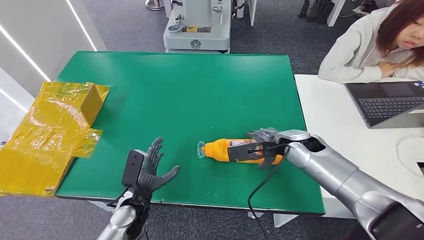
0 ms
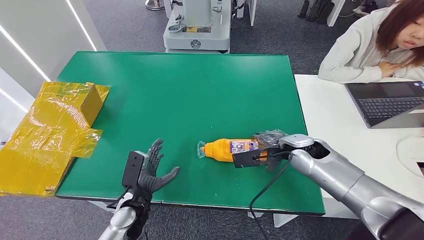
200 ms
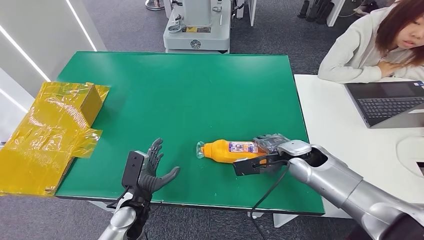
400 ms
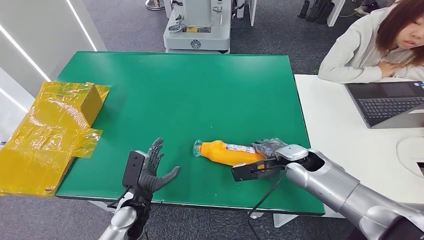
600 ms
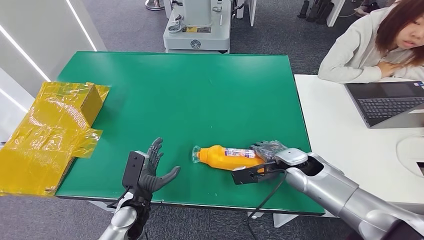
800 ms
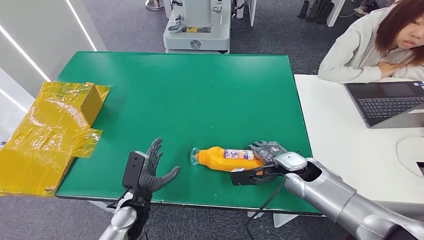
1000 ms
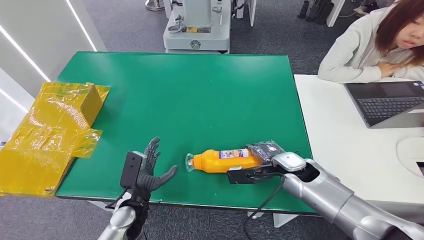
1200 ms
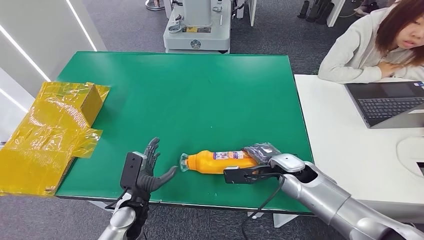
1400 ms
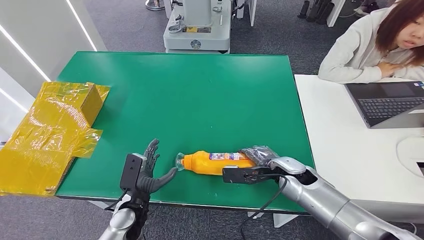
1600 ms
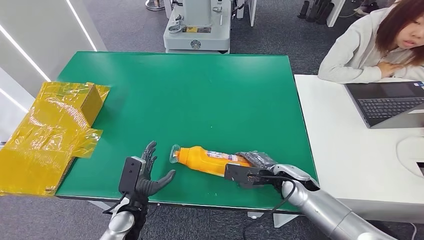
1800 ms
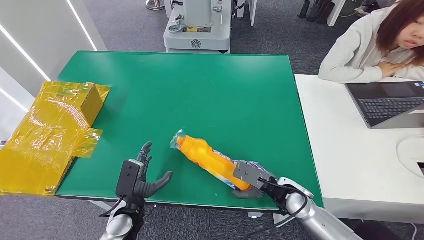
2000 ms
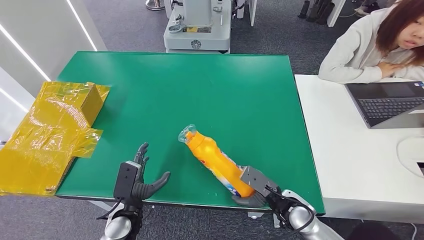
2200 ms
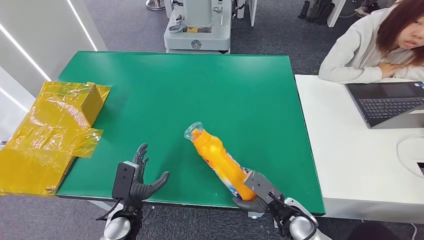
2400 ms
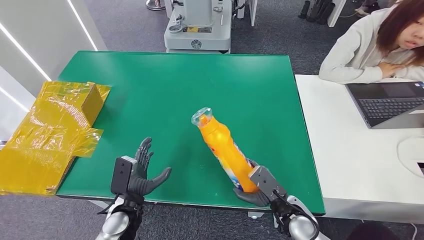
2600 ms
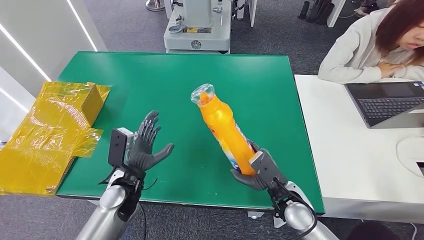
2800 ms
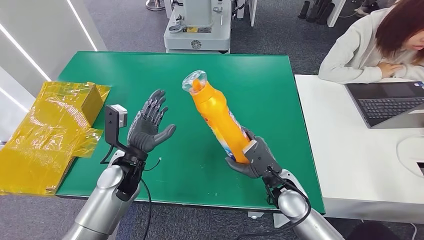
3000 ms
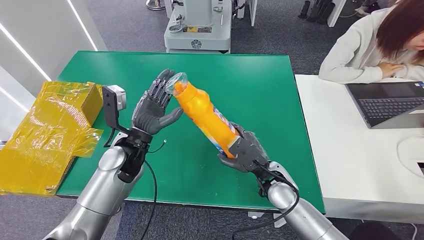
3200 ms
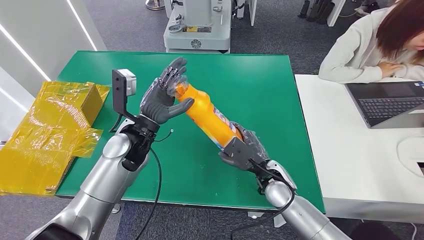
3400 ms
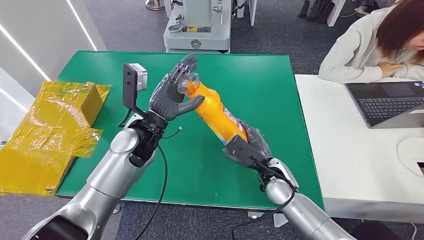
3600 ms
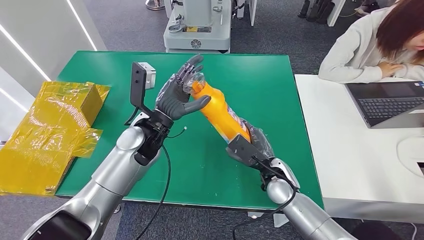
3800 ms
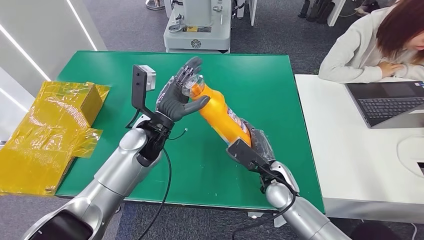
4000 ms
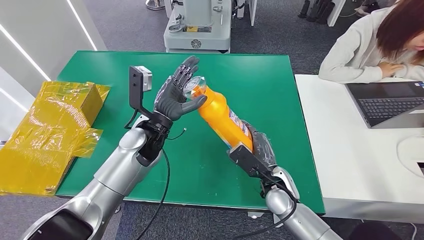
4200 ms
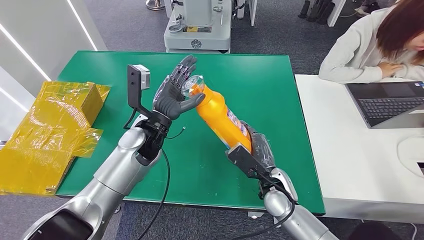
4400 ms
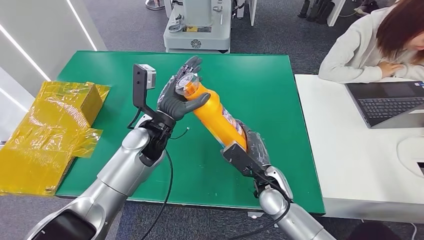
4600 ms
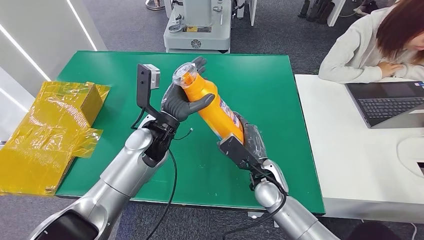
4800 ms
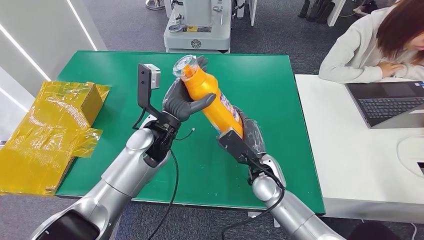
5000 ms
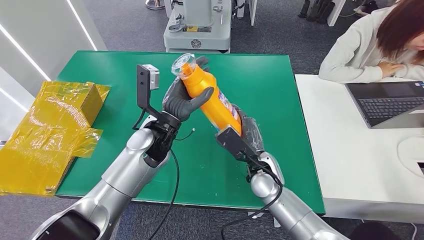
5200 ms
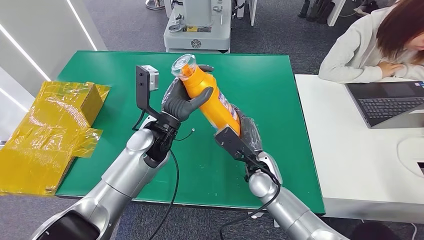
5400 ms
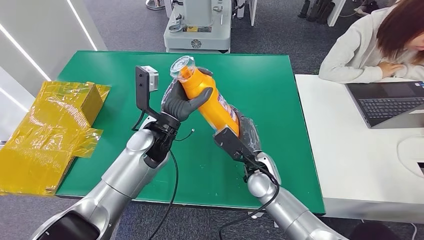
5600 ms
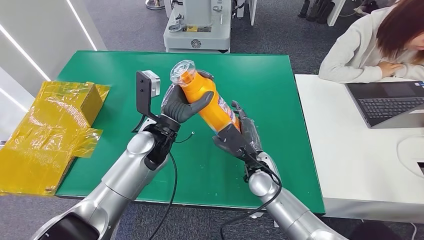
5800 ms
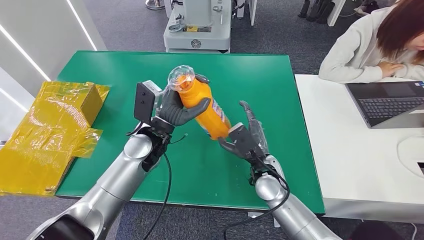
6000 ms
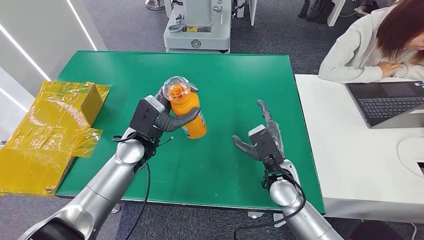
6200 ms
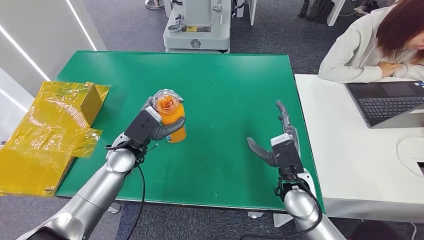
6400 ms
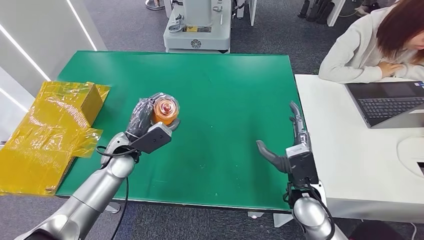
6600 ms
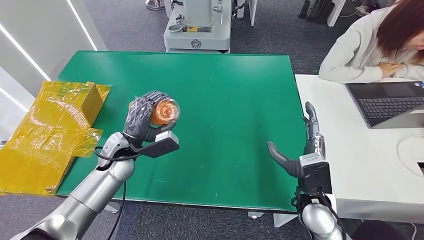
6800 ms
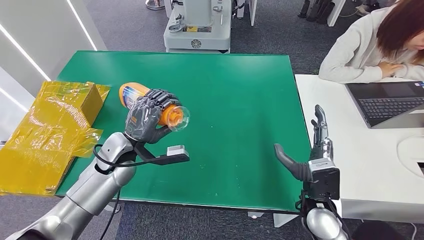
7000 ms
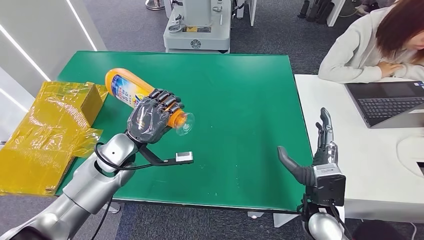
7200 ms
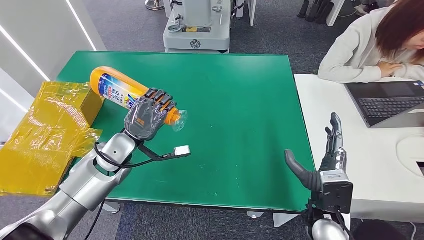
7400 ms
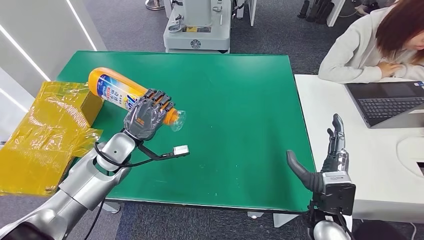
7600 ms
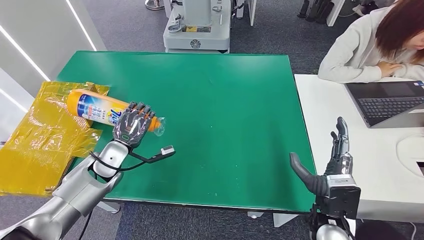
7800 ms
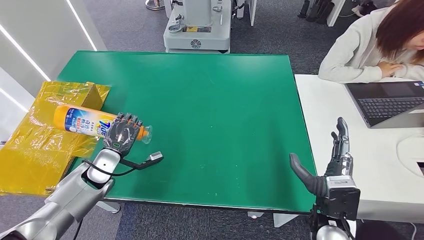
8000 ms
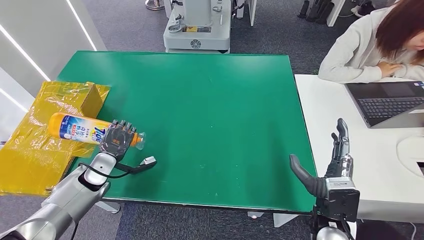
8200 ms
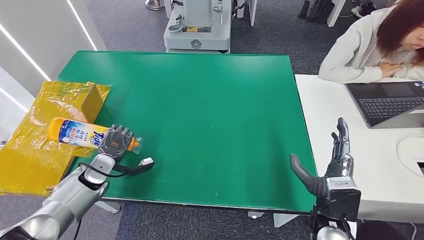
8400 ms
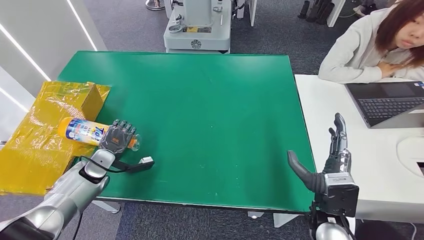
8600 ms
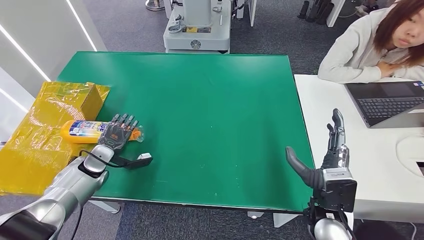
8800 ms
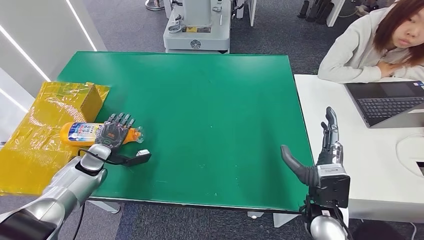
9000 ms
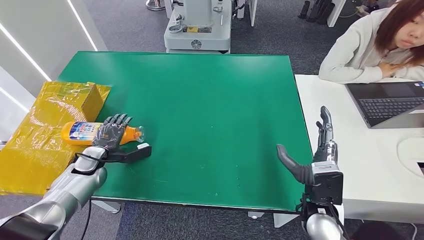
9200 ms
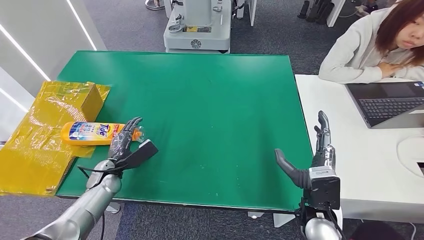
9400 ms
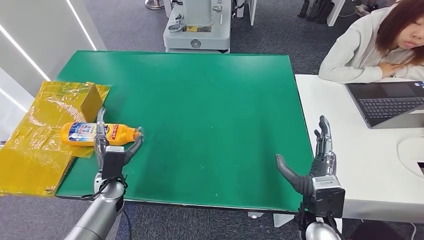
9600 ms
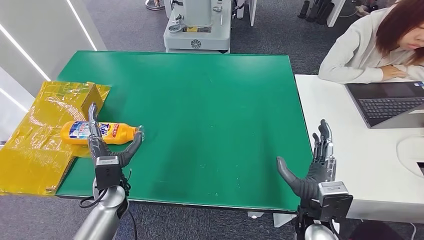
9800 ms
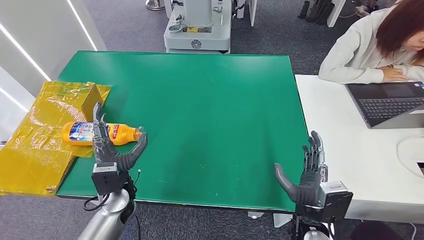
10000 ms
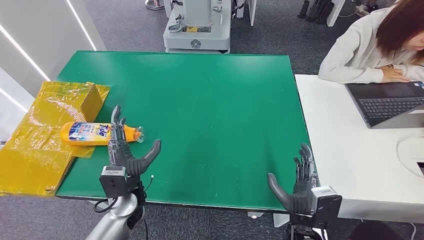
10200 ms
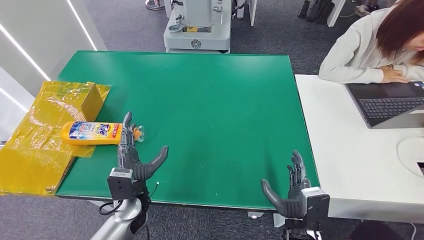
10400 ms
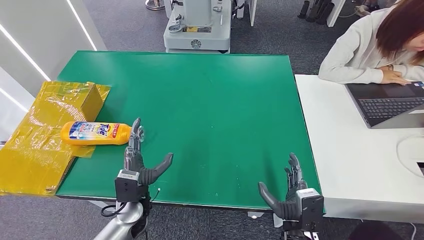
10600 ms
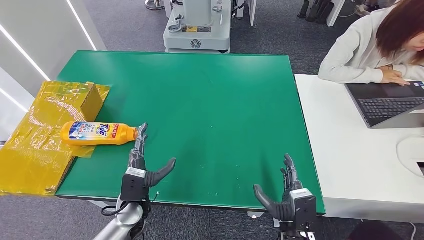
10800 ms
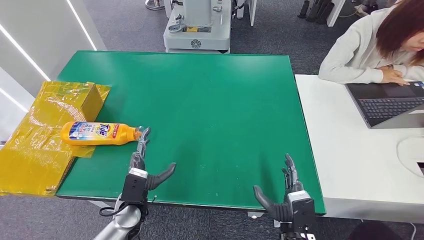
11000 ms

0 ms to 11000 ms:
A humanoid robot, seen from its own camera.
Step, 0 ms to 2800 ms: Pick up the bottle from the table.
Step, 3000 ms to 11000 ms: Turn the bottle to the front side.
0 ms to 1600 ms: The right hand goes roughly 10 cm downward and backward.
3200 ms to 4800 ms: The left hand goes roughly 5 cm to the right.
4800 ms to 6200 ms: The left hand ends up approximately 5 cm from where it was.
6200 ms to 7800 ms: The right hand heads backward and to the right, covering approximately 15 cm. Meanwhile the left hand heads to the left and downward, covering about 10 cm.
7800 ms to 9400 ms: The left hand is displaced downward by approximately 10 cm.
9400 ms to 11000 ms: The left hand goes about 15 cm to the right and backward. The right hand is displaced downward and backward by about 10 cm.

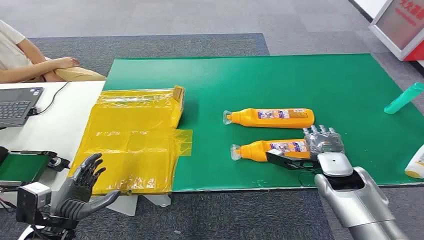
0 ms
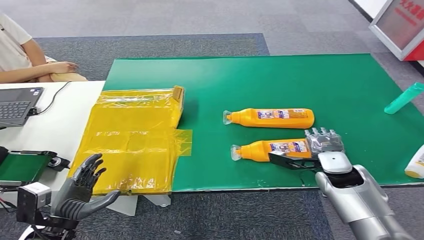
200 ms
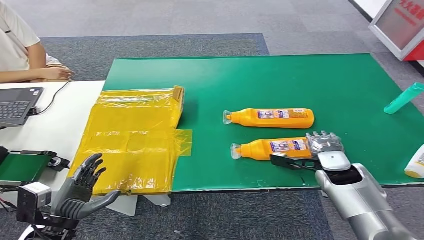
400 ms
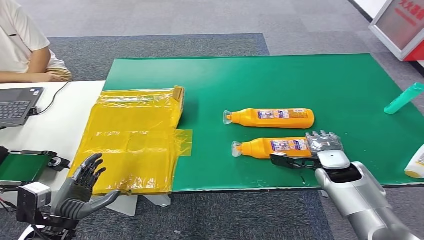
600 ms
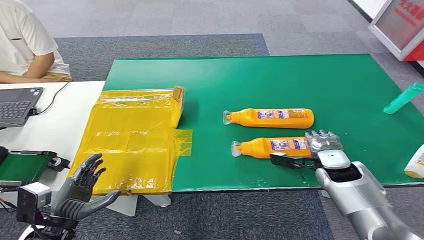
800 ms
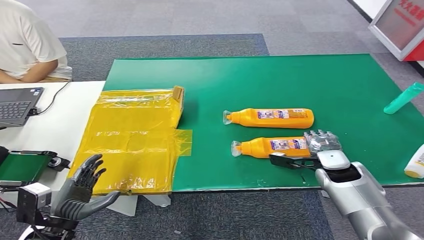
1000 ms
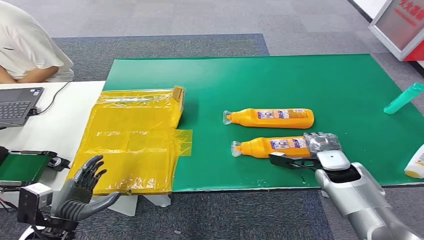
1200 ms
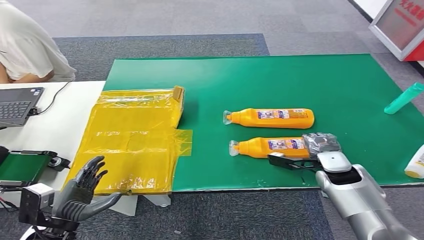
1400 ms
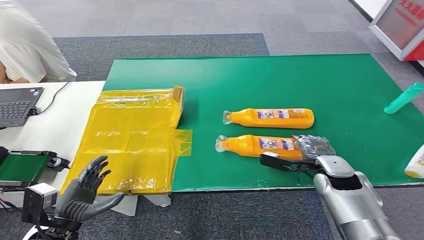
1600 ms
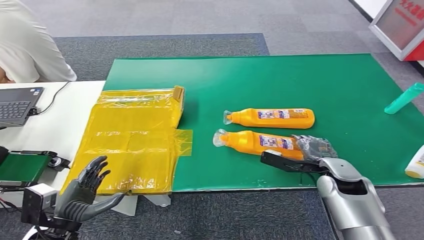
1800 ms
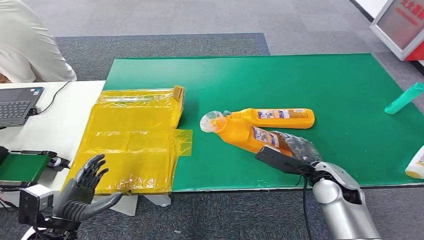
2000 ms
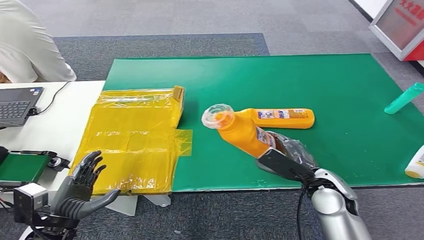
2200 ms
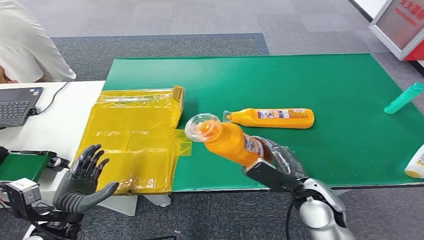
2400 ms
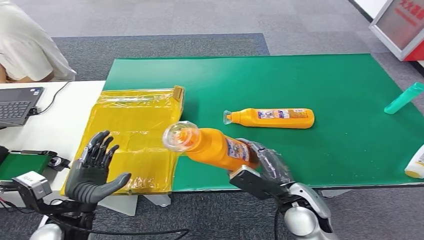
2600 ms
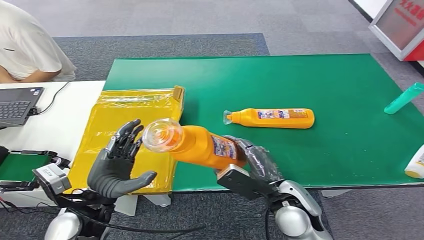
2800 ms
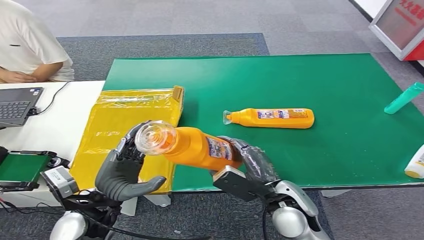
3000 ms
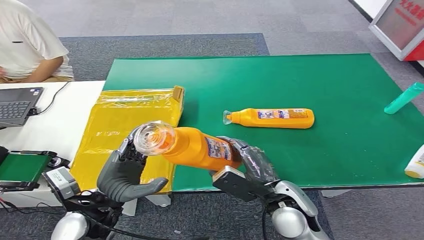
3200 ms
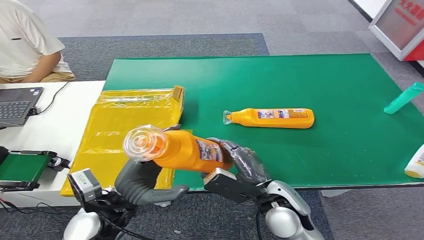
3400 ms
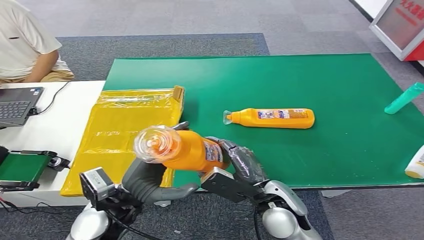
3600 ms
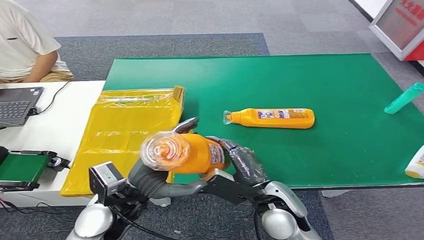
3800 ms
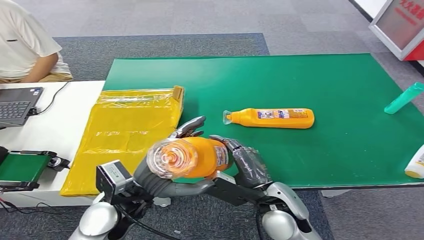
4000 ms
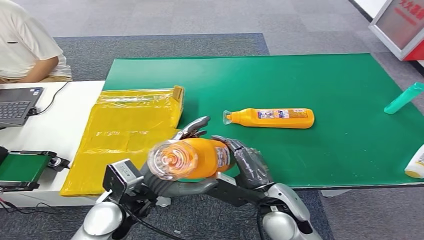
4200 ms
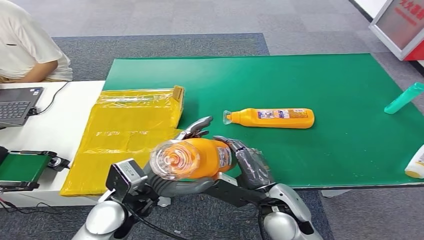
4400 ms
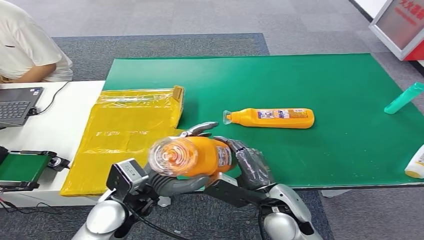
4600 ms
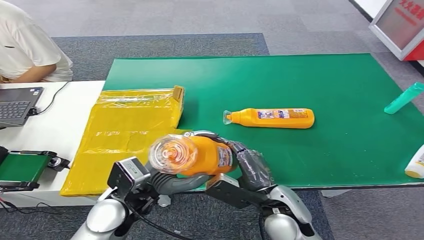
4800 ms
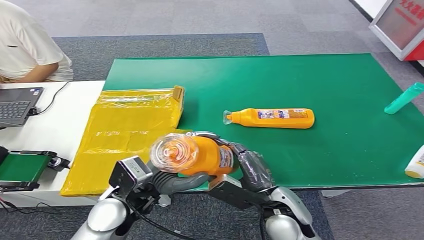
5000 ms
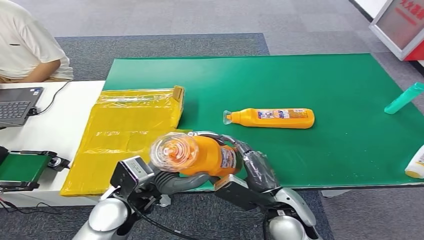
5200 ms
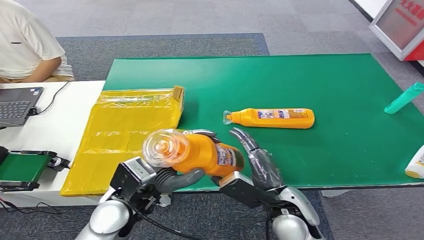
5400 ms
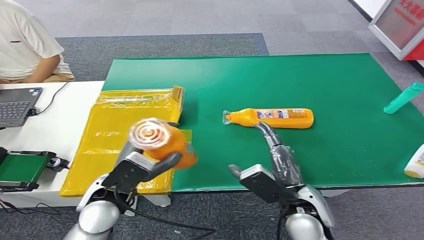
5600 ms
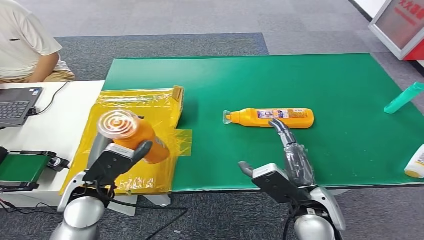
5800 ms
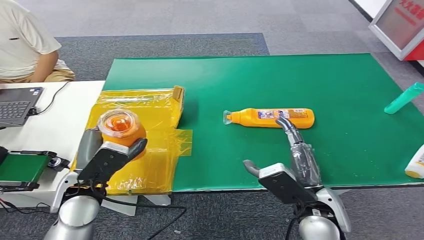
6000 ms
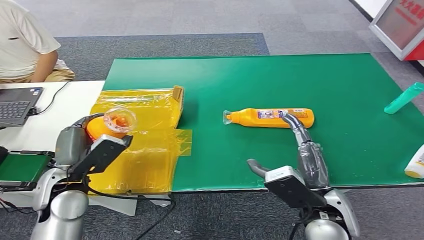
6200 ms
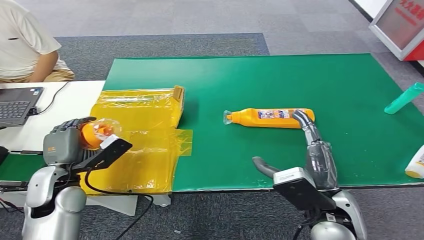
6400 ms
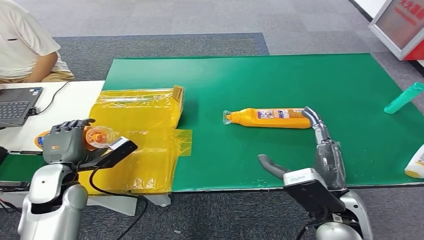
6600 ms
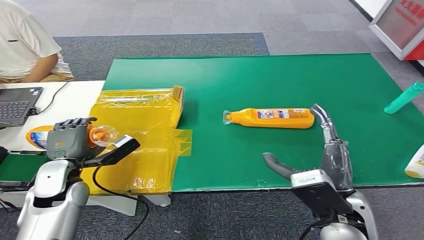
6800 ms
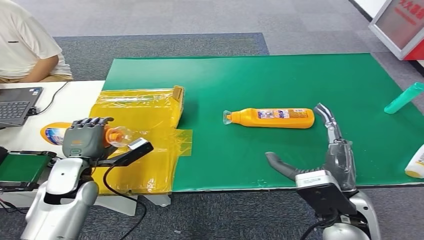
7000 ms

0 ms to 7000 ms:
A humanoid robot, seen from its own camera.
Step, 0 ms to 2400 ms: Pick up the bottle from the table.
2800 ms to 4200 ms: The left hand heads to the right, covering about 10 cm.
